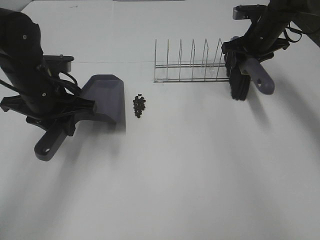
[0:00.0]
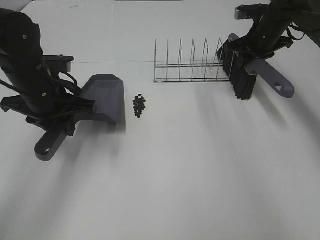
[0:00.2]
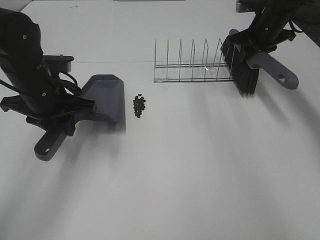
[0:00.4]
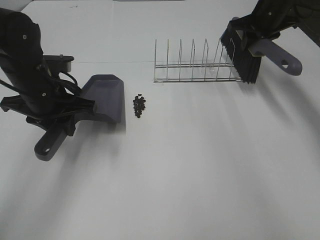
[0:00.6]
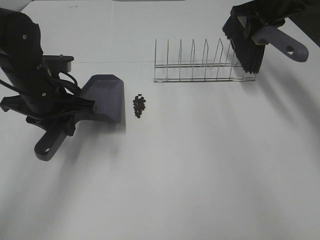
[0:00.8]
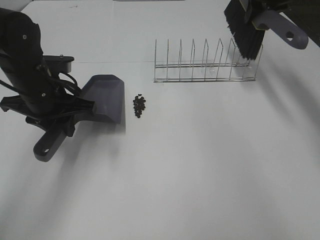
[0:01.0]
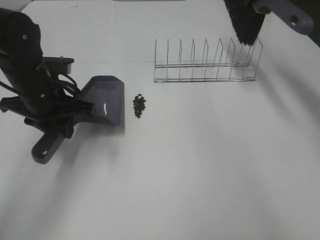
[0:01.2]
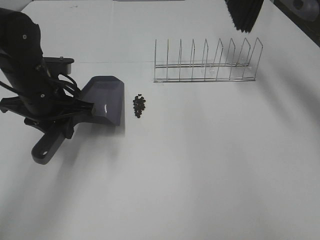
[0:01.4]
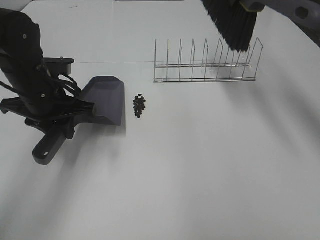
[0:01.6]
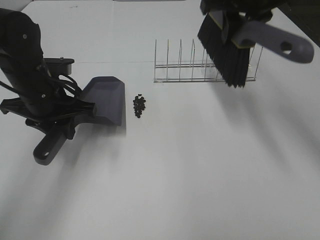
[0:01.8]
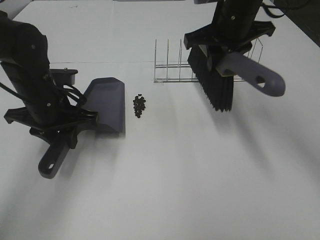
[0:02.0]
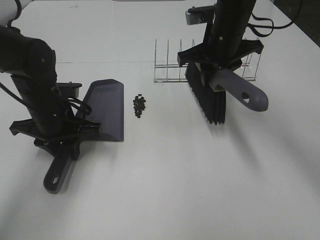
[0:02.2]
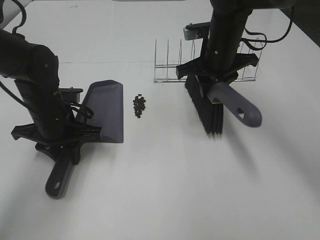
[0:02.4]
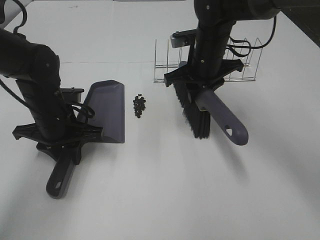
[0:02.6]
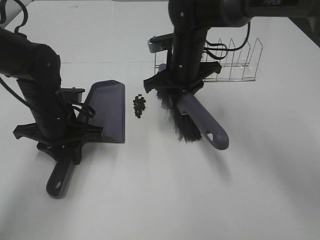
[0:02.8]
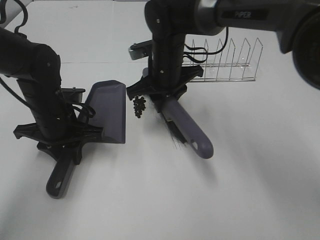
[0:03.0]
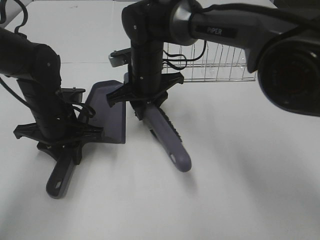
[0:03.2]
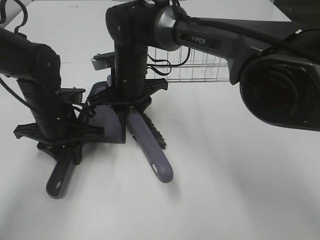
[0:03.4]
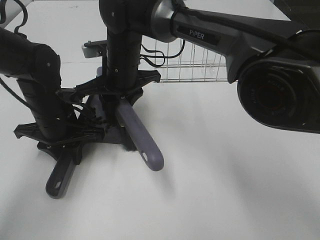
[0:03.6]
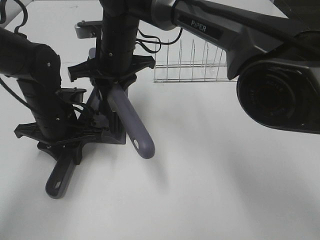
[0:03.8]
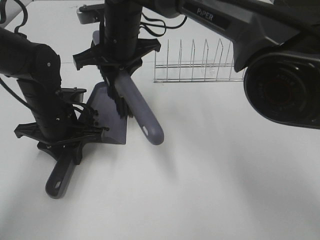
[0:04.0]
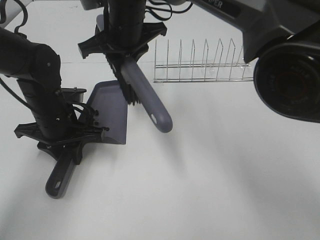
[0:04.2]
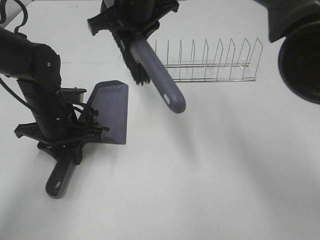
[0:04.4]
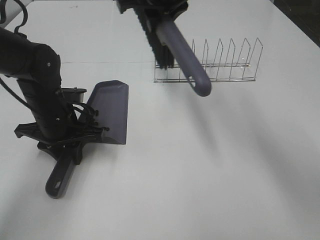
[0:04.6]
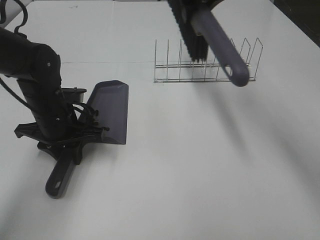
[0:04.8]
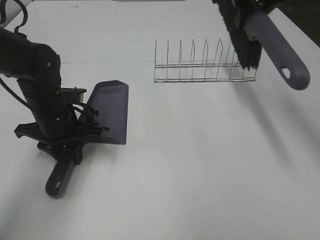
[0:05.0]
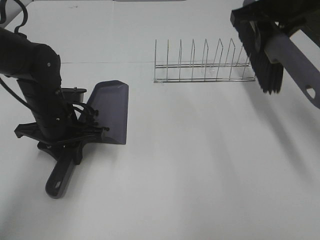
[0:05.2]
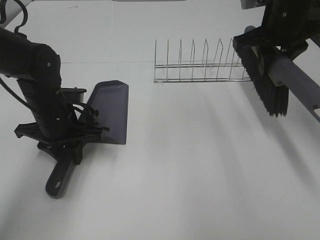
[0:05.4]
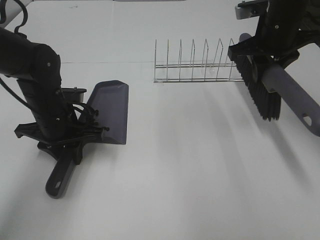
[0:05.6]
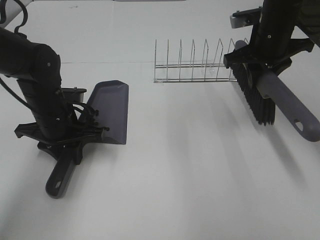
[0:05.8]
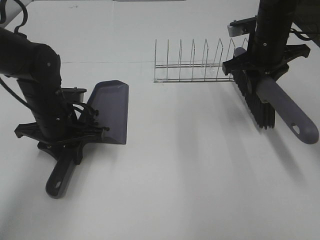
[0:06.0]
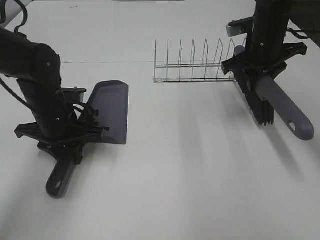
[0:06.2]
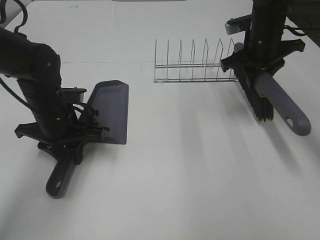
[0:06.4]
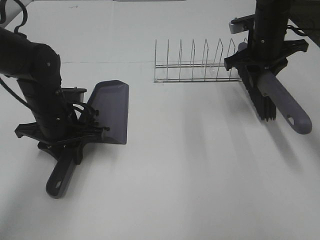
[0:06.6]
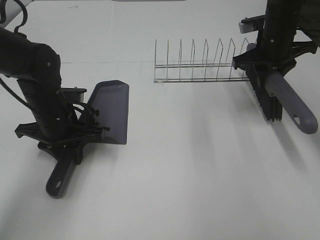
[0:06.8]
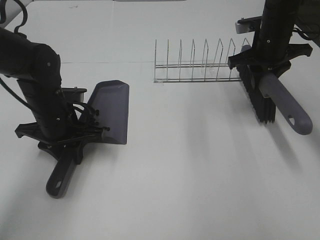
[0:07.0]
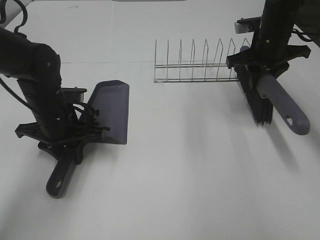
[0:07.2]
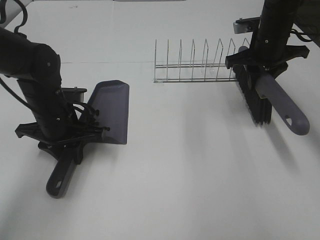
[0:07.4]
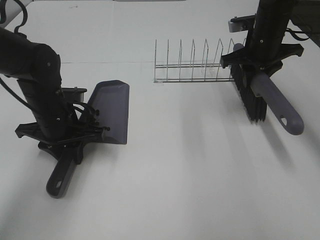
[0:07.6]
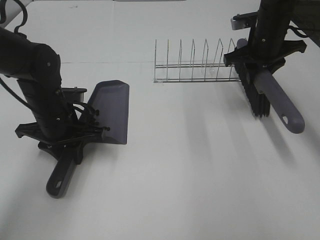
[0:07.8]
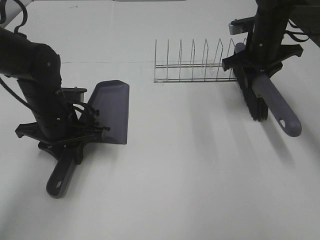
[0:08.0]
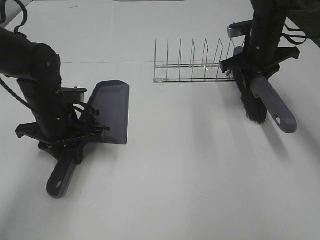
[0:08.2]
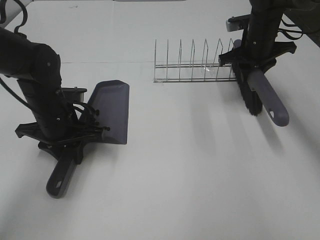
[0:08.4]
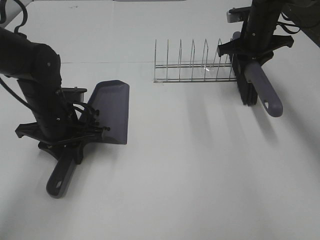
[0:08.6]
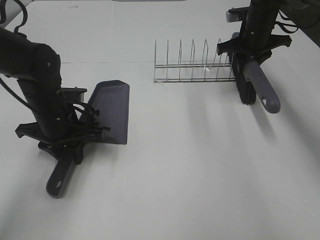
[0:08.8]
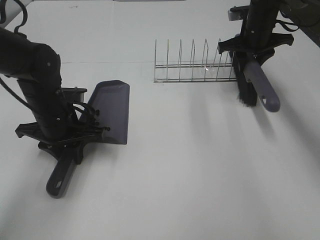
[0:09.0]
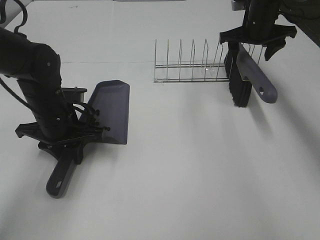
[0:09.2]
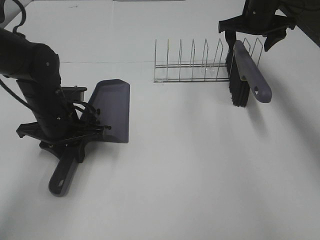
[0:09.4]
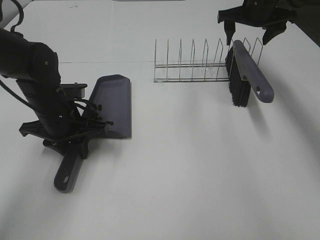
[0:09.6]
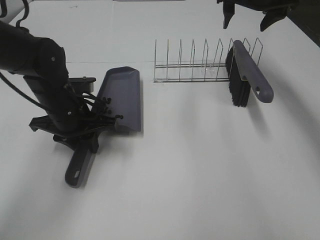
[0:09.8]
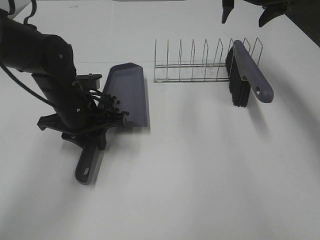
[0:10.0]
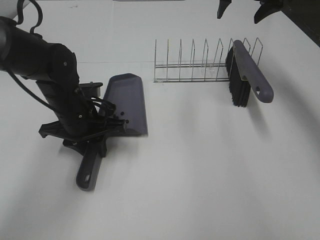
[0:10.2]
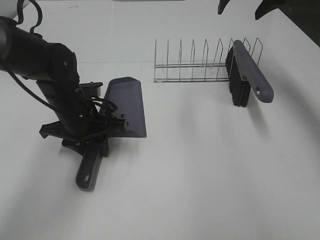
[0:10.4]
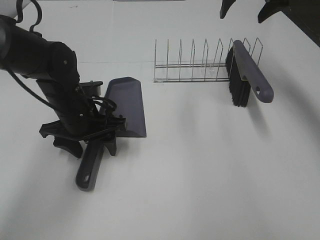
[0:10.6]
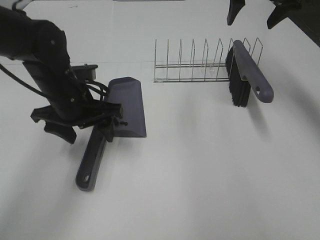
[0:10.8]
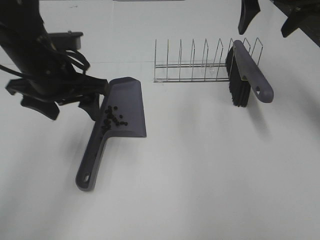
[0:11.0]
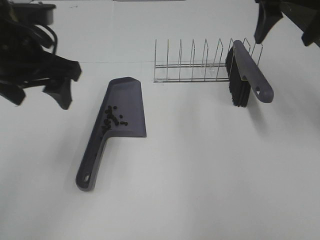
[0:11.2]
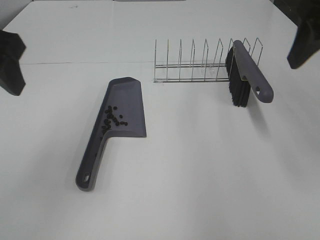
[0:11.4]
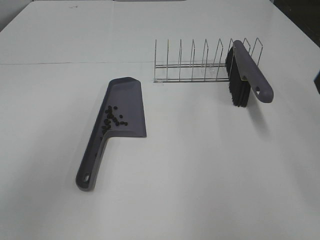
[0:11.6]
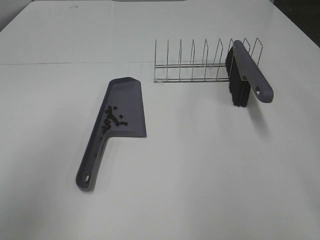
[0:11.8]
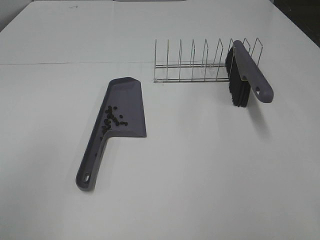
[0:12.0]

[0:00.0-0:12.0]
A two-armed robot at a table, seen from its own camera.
Task of the whole recording: Sweep Coffee Bean.
Step, 0:00.4 to 0:03.8: Right hand:sweep the coffee beans into the dustpan.
Step, 0:04.0 to 0:09.2: Right hand:place the broom on the rack.
Step, 0:09.4 to 0:10.6: Left hand:place the dustpan on the table.
0:00.0 to 0:01.6: The right gripper shifts about 20 cm upward and backward.
0:01.6 to 0:03.0: The left gripper moves downward, some 5 cm, while the right gripper is displaced downward and to the left by roughly 25 cm.
0:03.0 to 0:04.4: The right gripper shifts about 15 cm upward.
0:04.4 to 0:06.0: The right gripper heads to the right, covering about 20 cm.
0:06.0 to 0:07.6: The grippers stay close to where they were, moving slightly.
0:07.6 to 0:09.0: The right gripper travels forward by about 5 cm.
0:09.0 to 0:10.4: The right gripper heads upward, covering roughly 10 cm, and opens up.
0:10.4 to 0:12.0: The right gripper shifts about 40 cm backward; the left gripper goes approximately 35 cm backward, upward and to the left, and opens up.

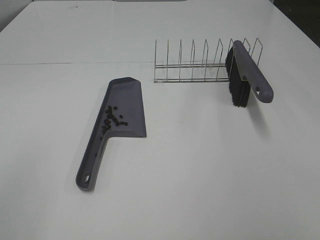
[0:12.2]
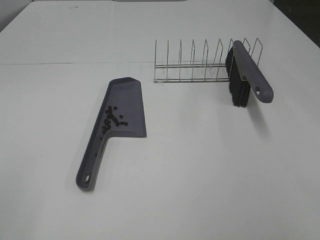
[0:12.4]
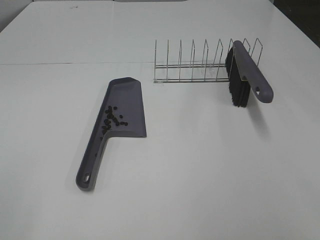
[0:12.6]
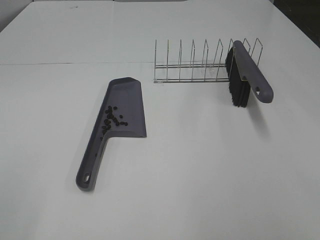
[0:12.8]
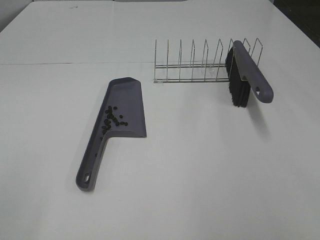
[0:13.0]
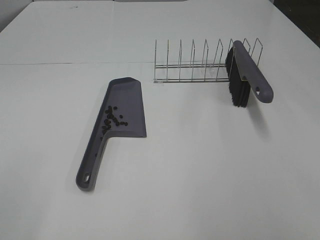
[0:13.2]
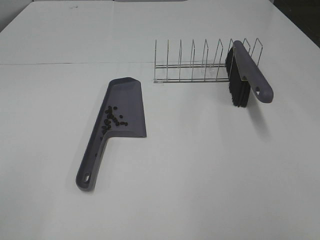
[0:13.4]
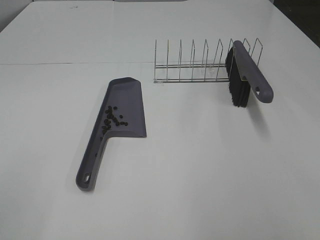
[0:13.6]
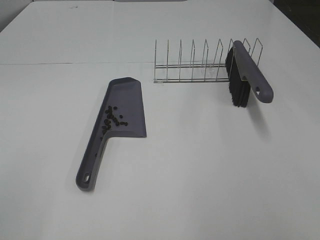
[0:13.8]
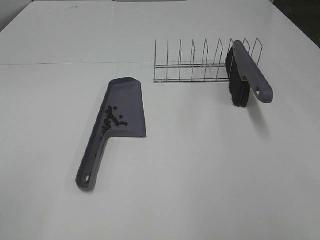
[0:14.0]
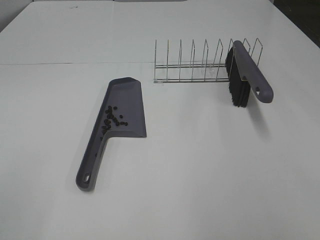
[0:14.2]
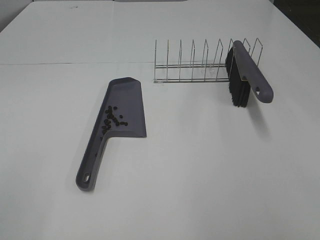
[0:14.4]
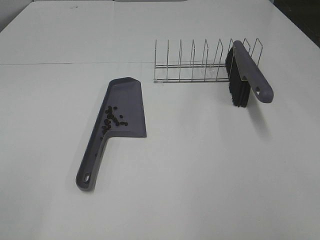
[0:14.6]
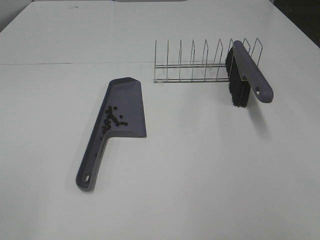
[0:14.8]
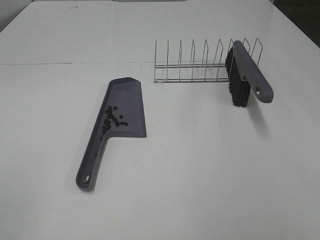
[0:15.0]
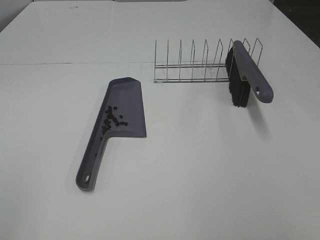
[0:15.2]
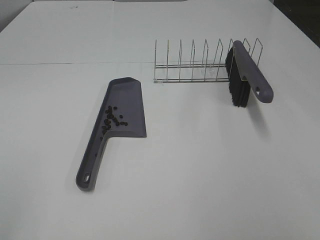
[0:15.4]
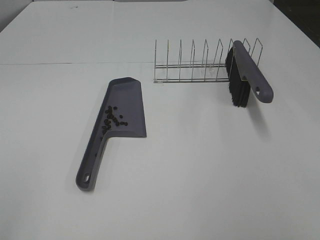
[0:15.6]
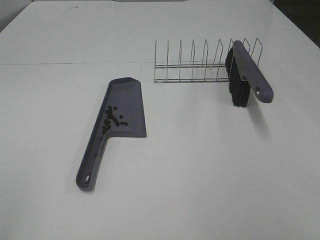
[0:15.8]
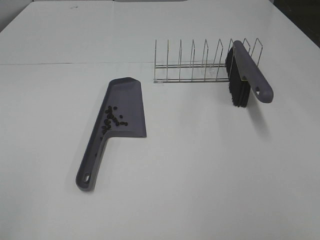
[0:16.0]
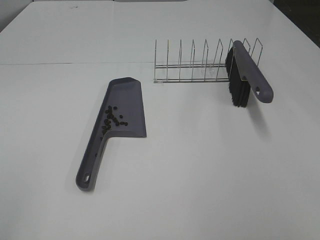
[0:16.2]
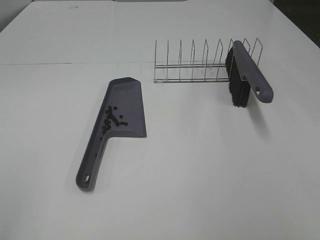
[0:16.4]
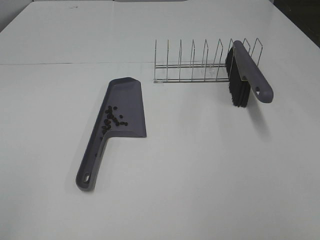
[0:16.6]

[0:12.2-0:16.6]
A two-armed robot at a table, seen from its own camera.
Task of the whole recording: Sweep Coffee Bean.
0:15.2 to 0:16.6: Neither gripper changes place.

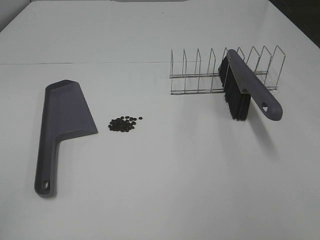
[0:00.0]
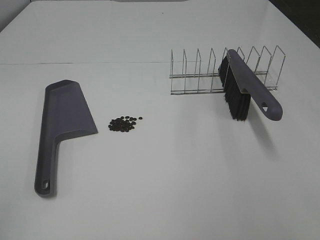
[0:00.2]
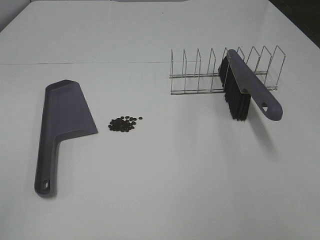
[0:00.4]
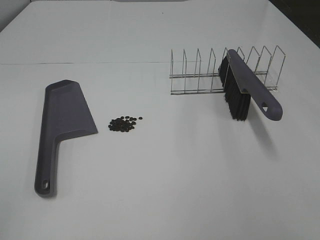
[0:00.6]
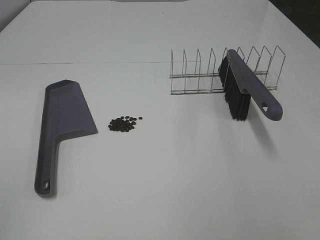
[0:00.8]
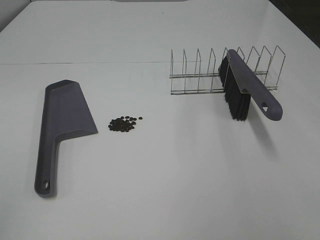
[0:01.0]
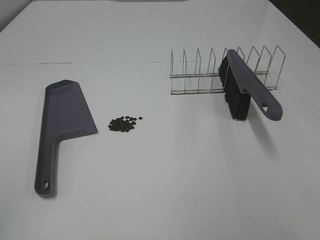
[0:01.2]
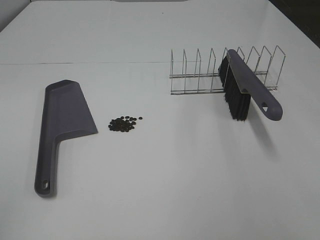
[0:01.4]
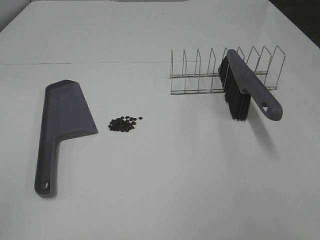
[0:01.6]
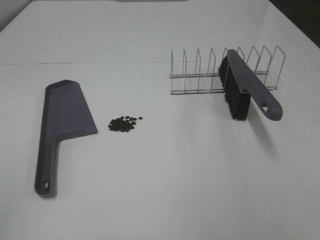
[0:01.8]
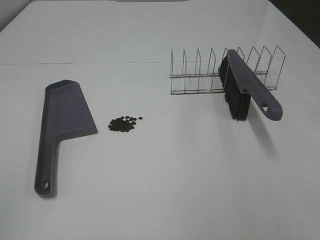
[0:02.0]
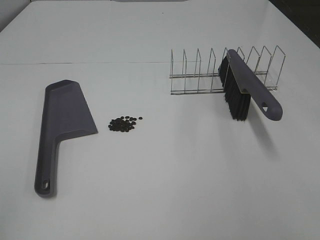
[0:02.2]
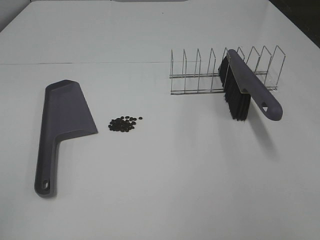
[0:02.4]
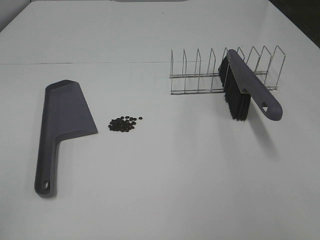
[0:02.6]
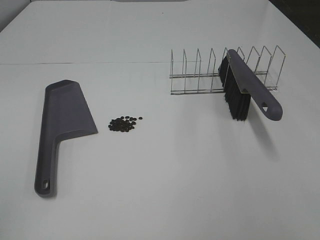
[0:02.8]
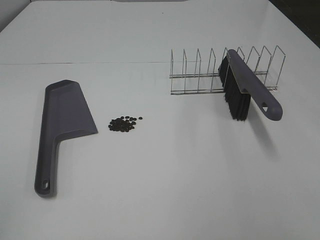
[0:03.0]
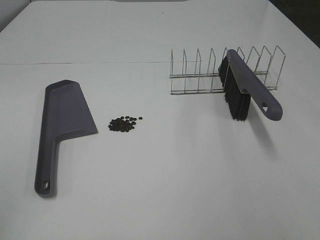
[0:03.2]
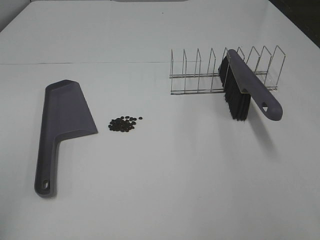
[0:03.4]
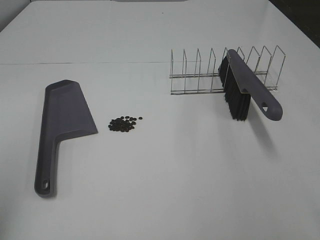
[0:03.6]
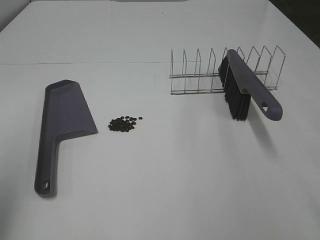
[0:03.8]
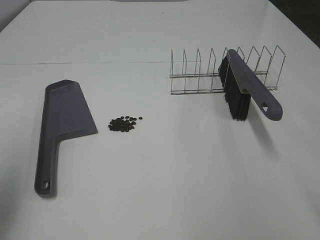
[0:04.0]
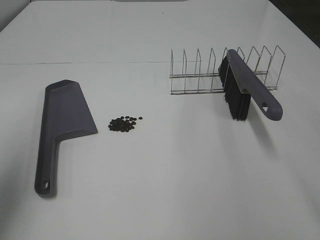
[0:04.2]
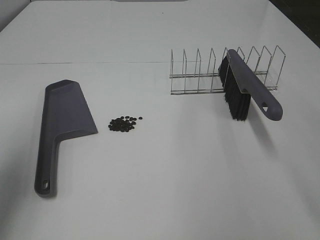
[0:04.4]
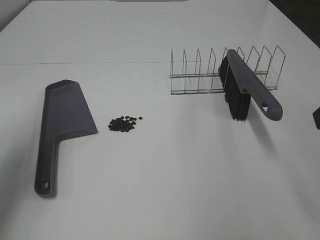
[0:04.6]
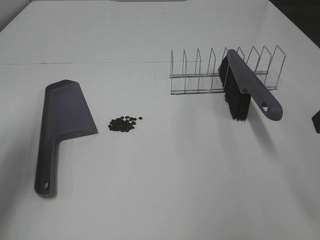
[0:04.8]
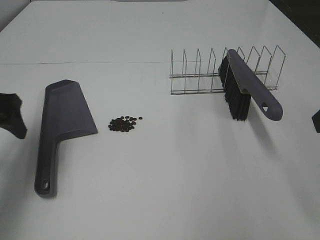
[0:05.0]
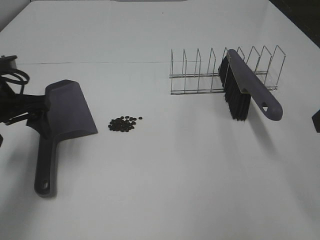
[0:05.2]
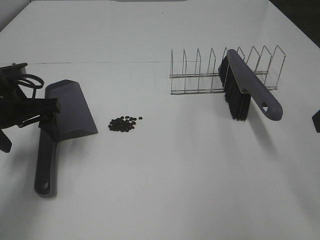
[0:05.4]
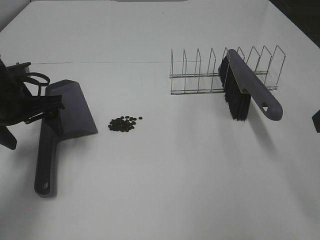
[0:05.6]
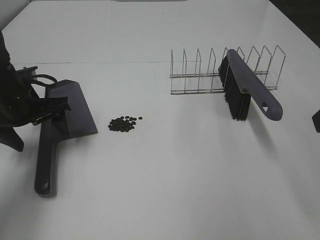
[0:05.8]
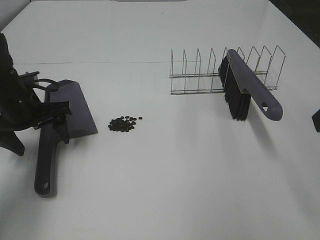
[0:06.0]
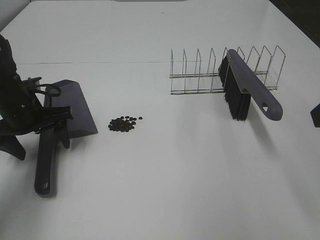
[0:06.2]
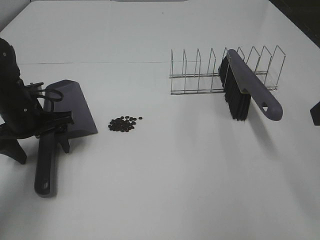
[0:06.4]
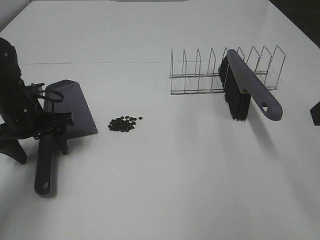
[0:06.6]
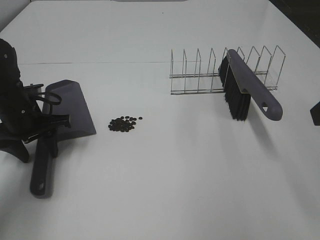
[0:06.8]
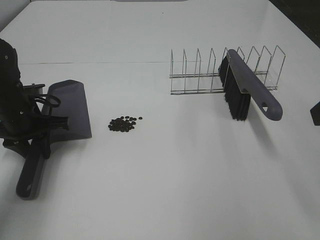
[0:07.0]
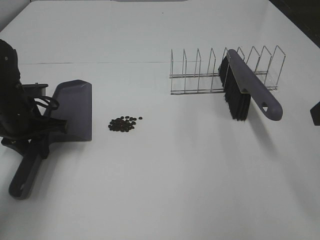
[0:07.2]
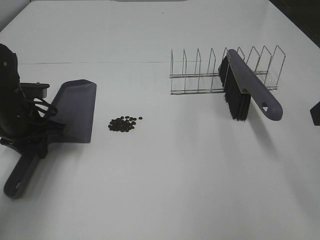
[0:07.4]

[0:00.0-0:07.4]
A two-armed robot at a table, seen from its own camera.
Task of the whole recording: Sweep Coffee Bean.
Step, 0:00.0 to 0:07.2: Left hand: grab the dustpan.
0:00.0 to 0:03.0: Both grippers stay put.
0:03.0 to 0:04.4: The left gripper moves forward, roughly 20 cm.
0:04.4 to 0:06.0: The left gripper goes approximately 25 cm downward, forward and to the right.
0:06.0 to 0:07.4: The left gripper closes up.
